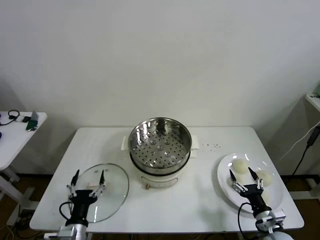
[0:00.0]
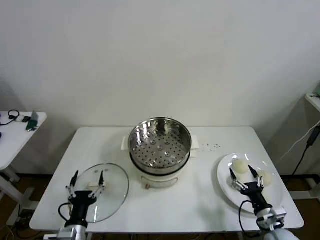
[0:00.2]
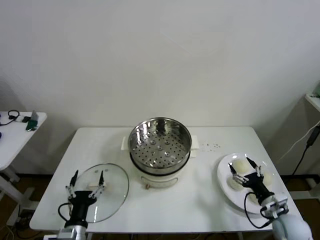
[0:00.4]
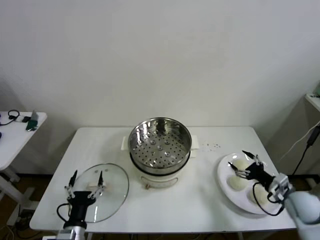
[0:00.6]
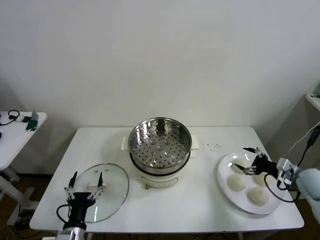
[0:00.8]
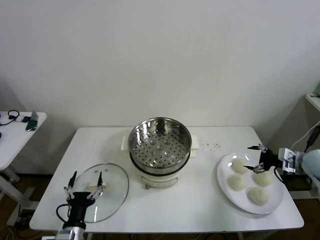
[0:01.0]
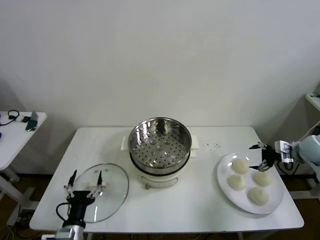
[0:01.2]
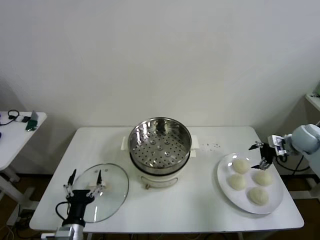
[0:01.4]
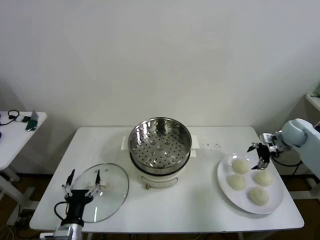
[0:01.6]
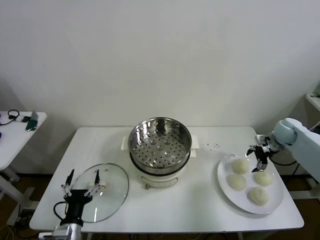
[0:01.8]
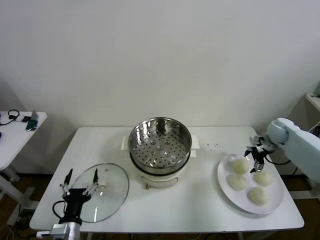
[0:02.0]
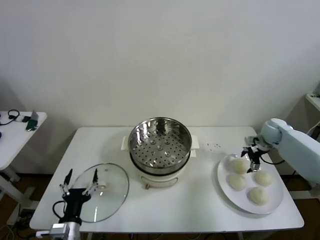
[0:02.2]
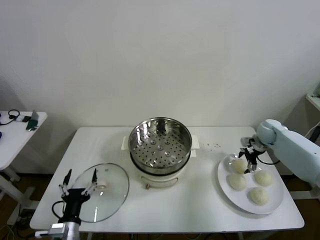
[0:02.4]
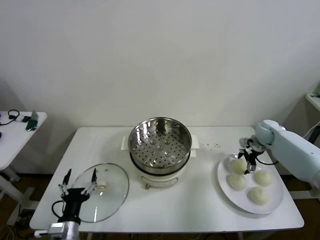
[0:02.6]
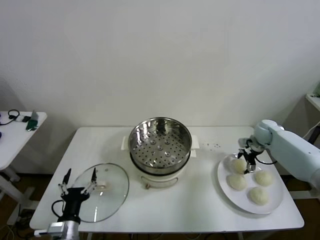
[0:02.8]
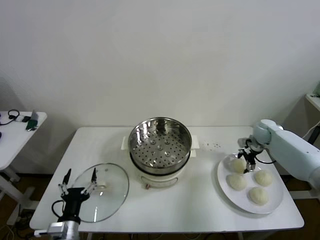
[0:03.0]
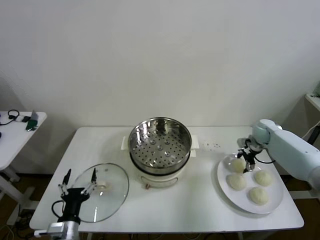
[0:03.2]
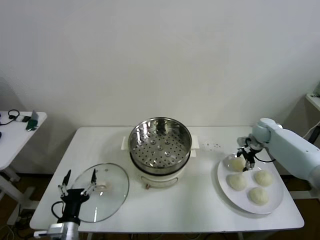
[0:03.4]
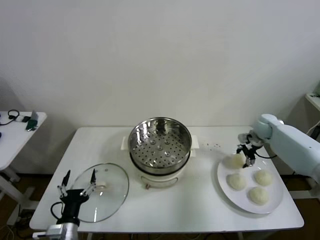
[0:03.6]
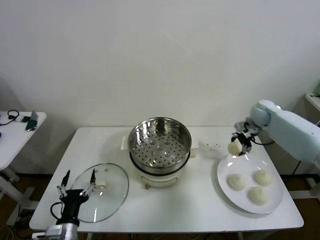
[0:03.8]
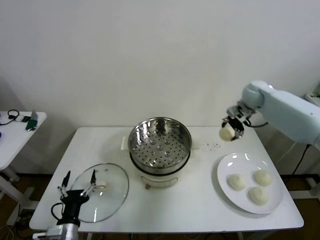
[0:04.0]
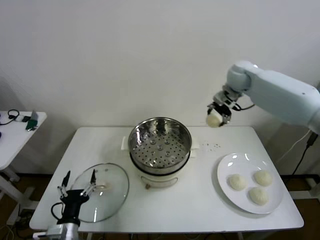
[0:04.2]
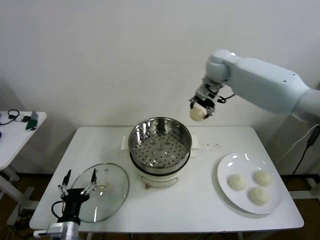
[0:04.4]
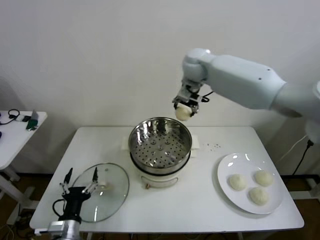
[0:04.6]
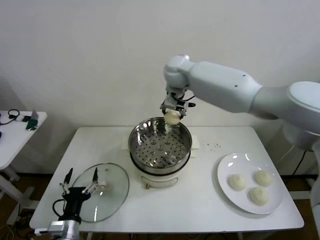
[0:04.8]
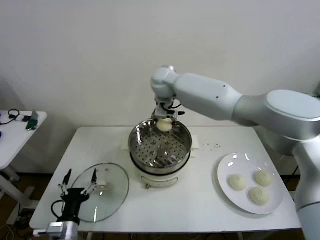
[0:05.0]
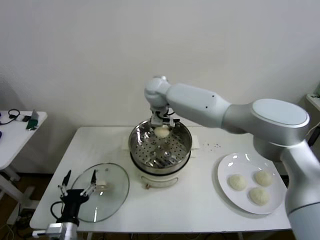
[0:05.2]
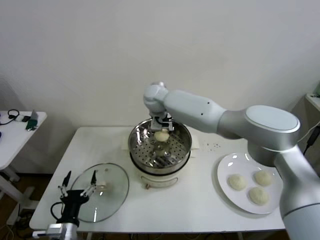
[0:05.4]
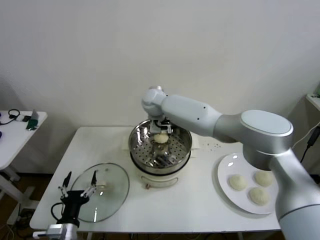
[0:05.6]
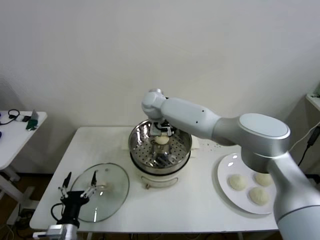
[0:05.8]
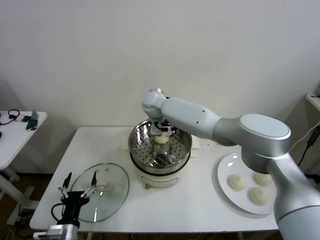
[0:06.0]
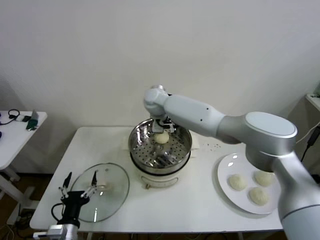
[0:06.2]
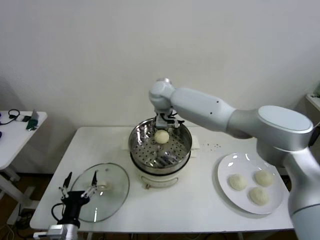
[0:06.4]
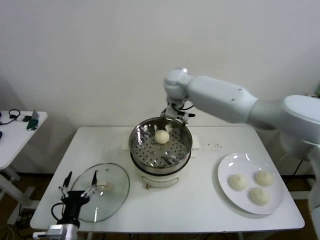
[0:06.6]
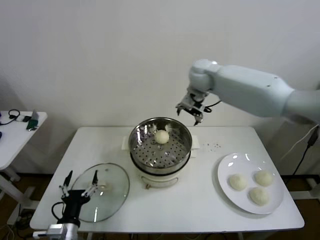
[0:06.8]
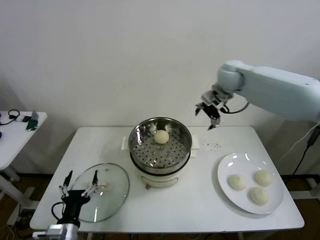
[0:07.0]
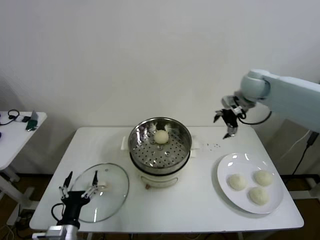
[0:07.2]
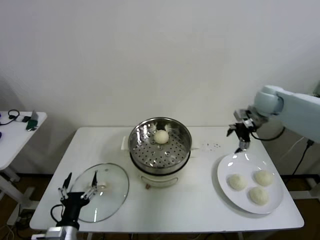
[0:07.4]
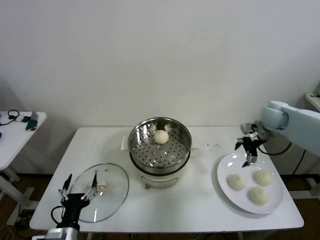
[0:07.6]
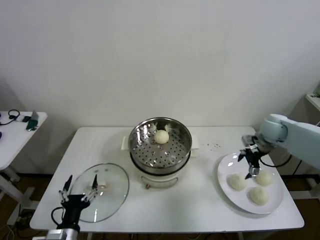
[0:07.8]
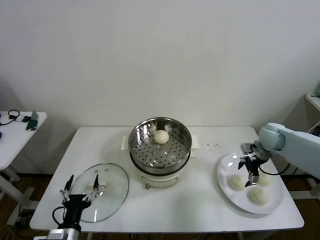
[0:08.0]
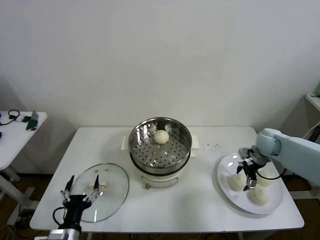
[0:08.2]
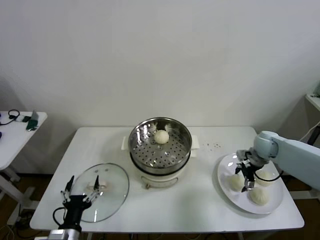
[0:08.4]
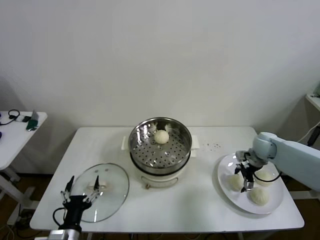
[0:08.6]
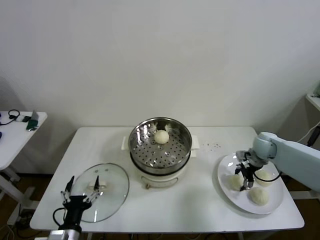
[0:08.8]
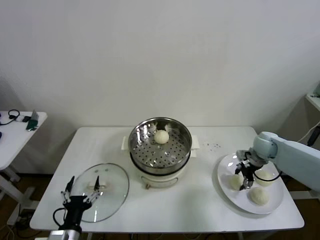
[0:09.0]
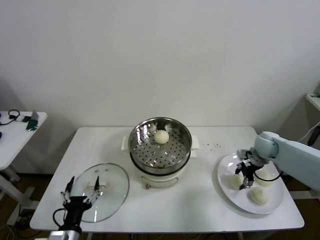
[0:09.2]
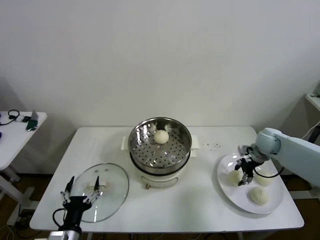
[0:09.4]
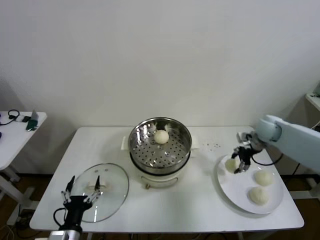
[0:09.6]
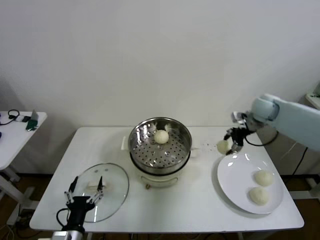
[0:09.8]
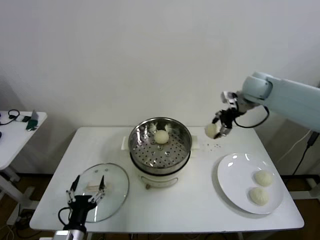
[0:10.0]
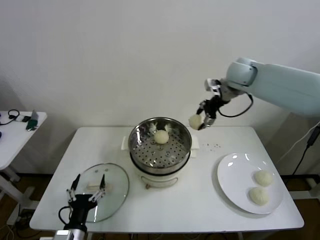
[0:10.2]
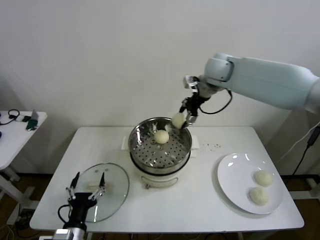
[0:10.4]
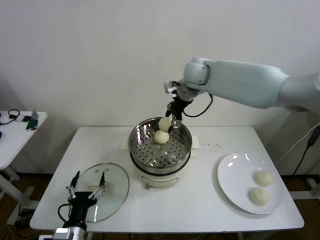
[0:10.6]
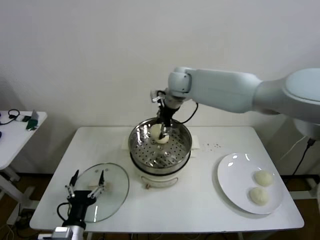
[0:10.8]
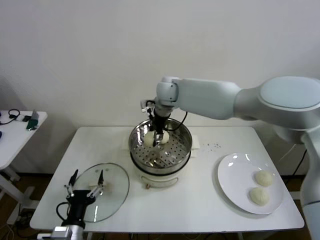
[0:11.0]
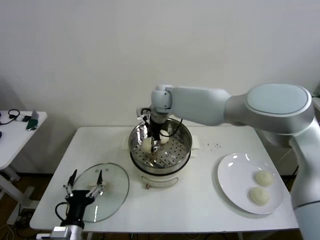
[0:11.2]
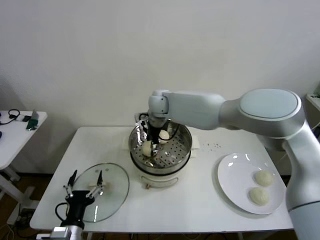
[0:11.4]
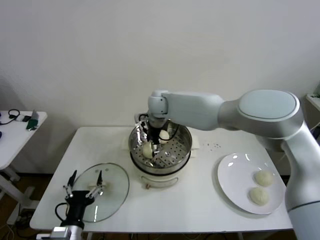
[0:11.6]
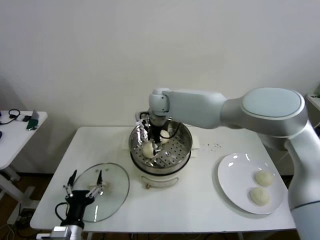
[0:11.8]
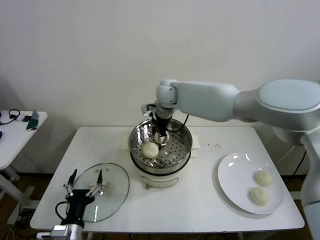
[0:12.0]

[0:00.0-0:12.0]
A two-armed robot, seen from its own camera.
Step, 0:00.0 to 0:03.2: Grasp the baozi in the plate with right gripper.
Step, 0:03.4 to 0:06.0: Place the baozi on the steamer with right gripper.
Step, 0:06.2 to 0:09.0: Grasp the baozi in the plate with right gripper.
Step, 0:09.2 to 0:11.6: Place the baozi on the steamer with right gripper.
0:01.6 to 0:03.0: The right gripper shifts some 5 cm to the left, and closes.
0:03.0 to 0:04.4: The right gripper shifts approximately 40 cm to the left and upward.
0:04.4 to 0:06.0: The right gripper shifts roughly 20 cm to the left and downward, and opens its fingers.
0:06.0 to 0:07.6: The right gripper travels to the right by approximately 40 cm.
0:07.6 to 0:09.0: The right gripper goes approximately 10 cm downward, and closes.
0:09.0 to 0:10.4: The right gripper heads upward and to the left, covering some 35 cm.
0:10.4 to 0:12.0: The right gripper shifts about 15 cm to the left and downward, and opens up.

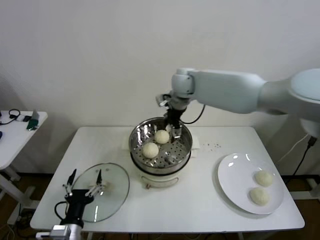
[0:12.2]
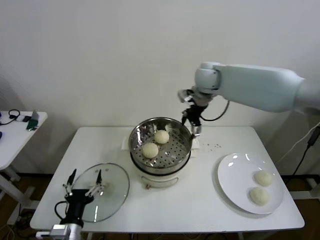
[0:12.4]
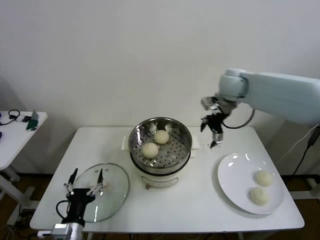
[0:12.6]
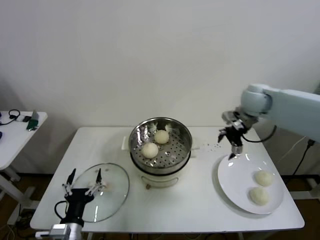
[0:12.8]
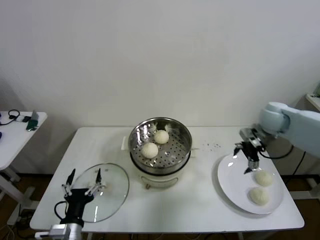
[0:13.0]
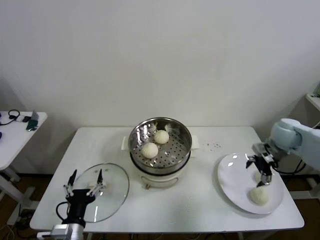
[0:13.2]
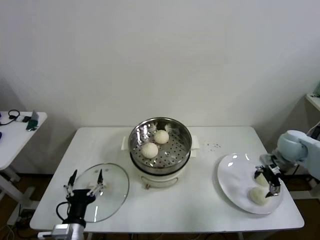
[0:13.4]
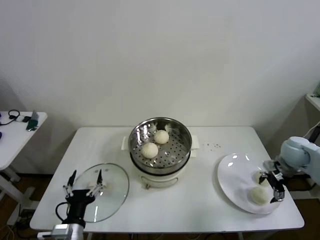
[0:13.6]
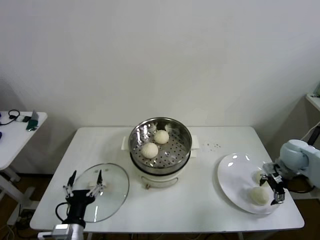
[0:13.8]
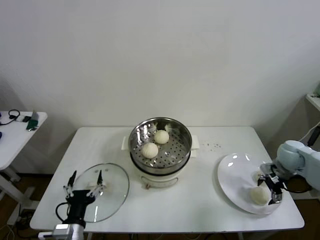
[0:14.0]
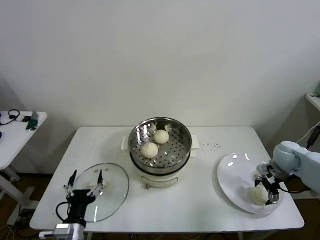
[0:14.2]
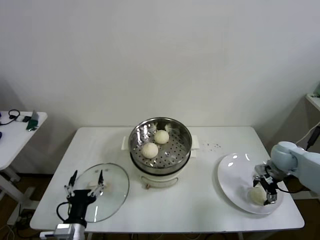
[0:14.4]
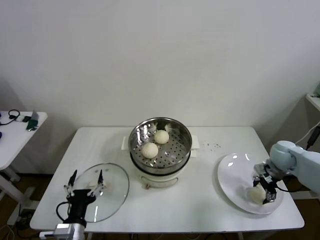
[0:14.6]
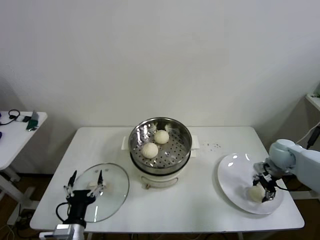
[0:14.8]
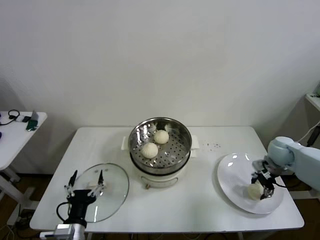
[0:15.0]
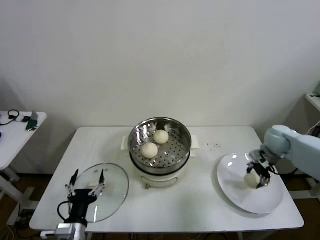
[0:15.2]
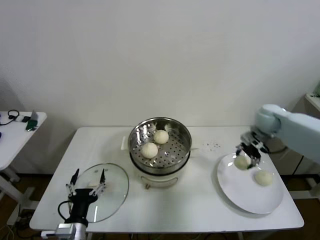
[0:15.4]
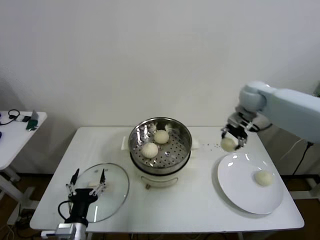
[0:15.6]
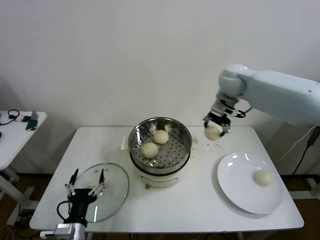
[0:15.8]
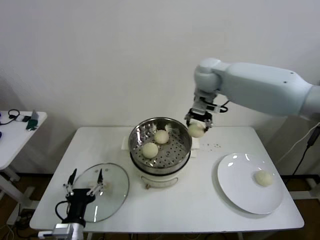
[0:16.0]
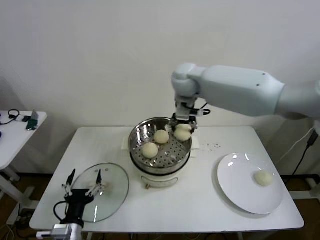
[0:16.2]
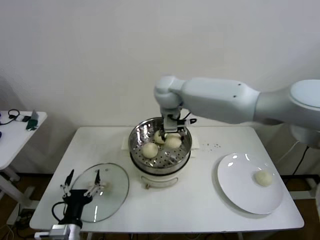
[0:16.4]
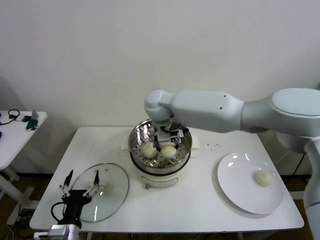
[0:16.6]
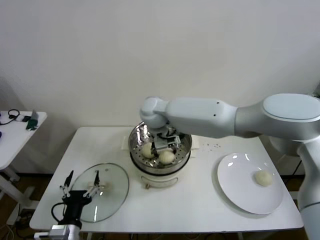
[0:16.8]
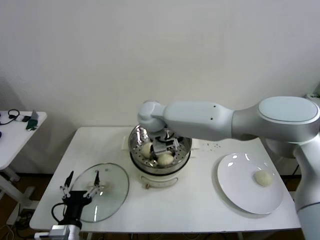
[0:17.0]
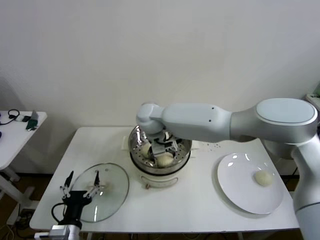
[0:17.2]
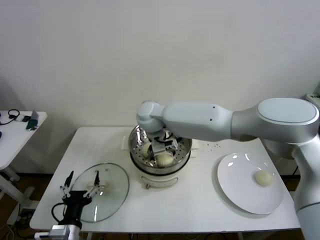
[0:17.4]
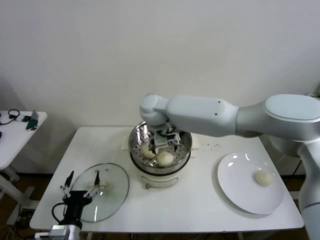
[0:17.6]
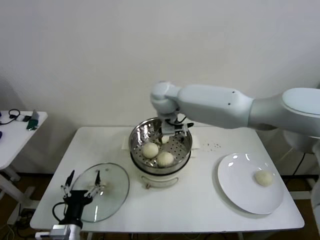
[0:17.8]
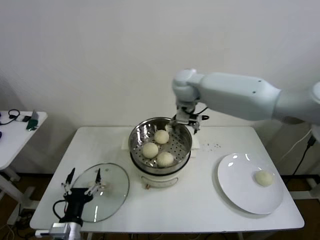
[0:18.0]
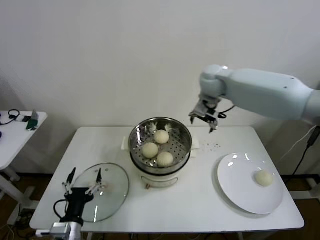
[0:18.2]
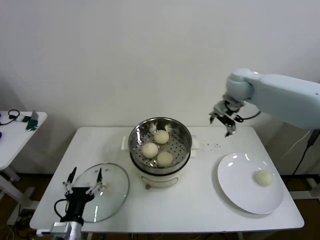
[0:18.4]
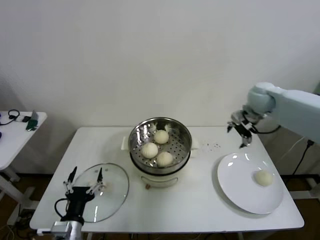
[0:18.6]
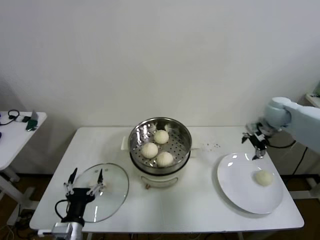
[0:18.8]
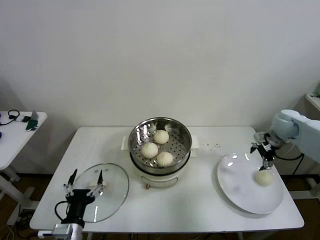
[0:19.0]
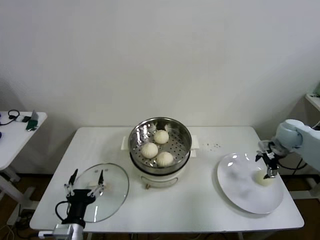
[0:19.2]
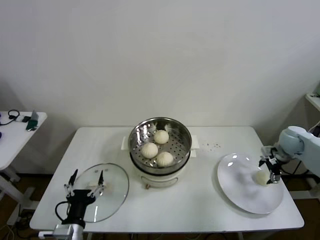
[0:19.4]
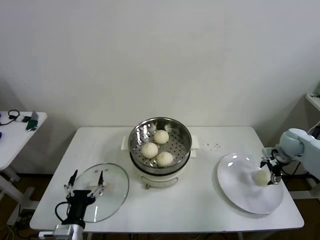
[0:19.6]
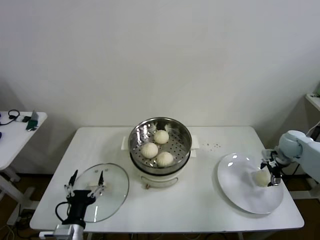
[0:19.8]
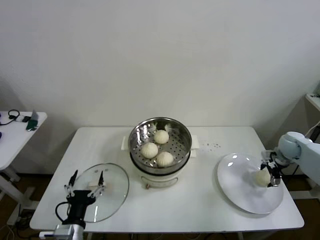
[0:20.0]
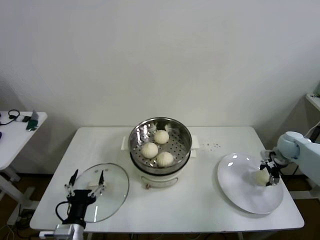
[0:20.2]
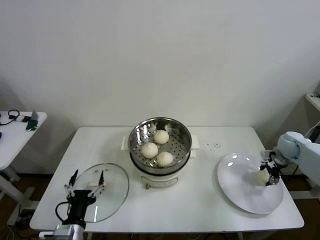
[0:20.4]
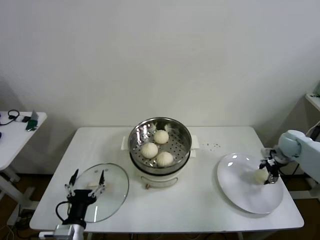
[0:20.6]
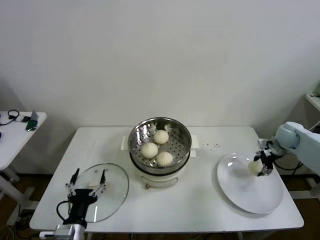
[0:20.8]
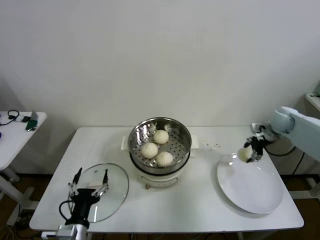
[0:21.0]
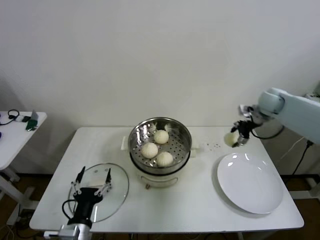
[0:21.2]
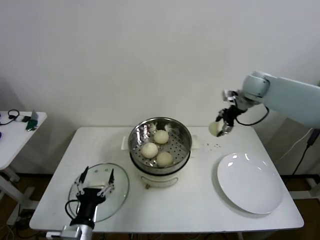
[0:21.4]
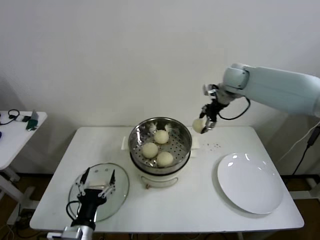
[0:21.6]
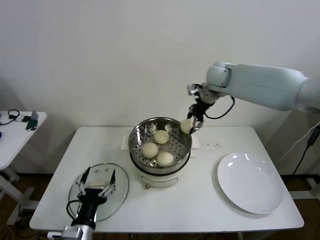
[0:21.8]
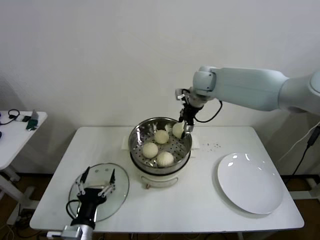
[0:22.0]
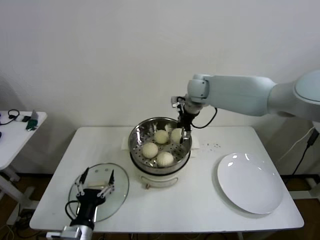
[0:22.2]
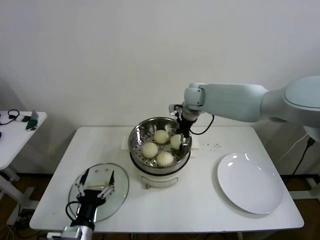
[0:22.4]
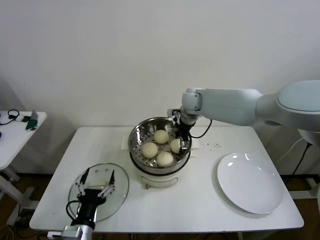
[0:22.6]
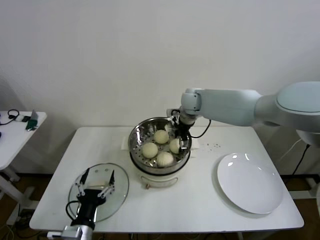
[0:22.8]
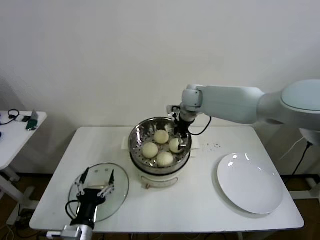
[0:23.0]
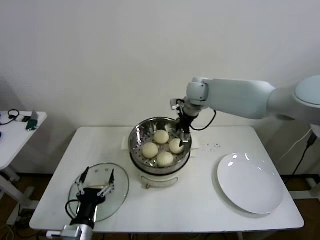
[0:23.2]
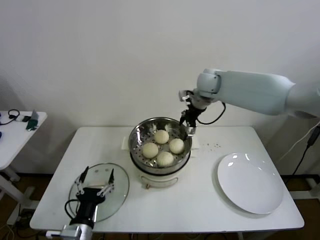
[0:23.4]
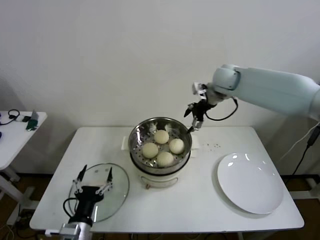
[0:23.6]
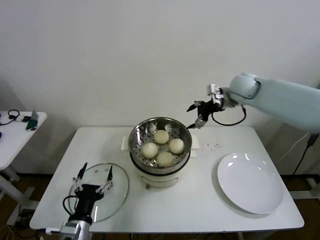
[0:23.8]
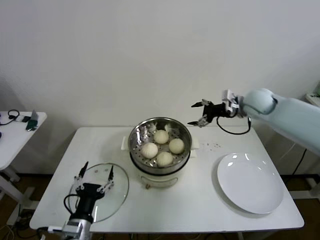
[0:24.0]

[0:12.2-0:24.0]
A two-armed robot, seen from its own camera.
Step, 0:12.2 to 0:14.6: Grasp the baozi in the plate with right gripper.
Step, 0:15.0 to 0:17.4: Place the baozi on the steamer with right gripper.
Step, 0:17.6 to 0:20.4: Grasp the baozi in the plate with right gripper.
Step, 0:20.6 to 0:23.0: Place the baozi on the steamer with right gripper.
0:12.2 to 0:13.6: The right gripper travels to the right, downward and backward by approximately 40 cm.
0:13.6 to 0:15.2: The right gripper travels forward by some 5 cm, and closes its fingers.
0:15.2 to 0:16.6: The right gripper heads to the left, covering approximately 40 cm.
0:16.6 to 0:18.2: The right gripper is displaced to the right by some 20 cm, and opens up.
0:18.2 to 0:19.6: The right gripper heads to the right and downward, covering some 35 cm.
0:19.6 to 0:21.0: The right gripper shifts approximately 10 cm upward and forward, and closes up.
0:21.0 to 0:22.6: The right gripper goes about 30 cm to the left, and opens.
0:22.6 to 0:24.0: The right gripper moves to the right, about 20 cm, and opens its fingers.
